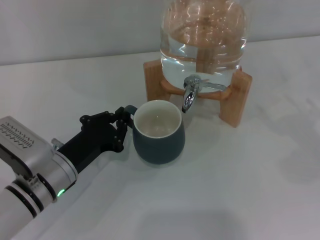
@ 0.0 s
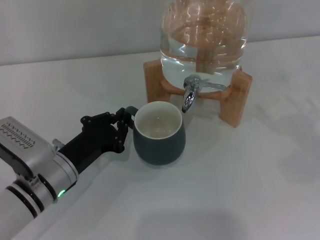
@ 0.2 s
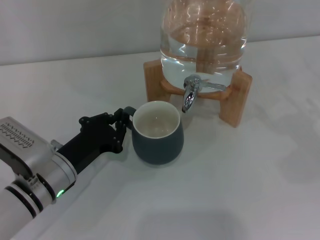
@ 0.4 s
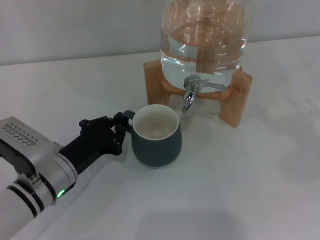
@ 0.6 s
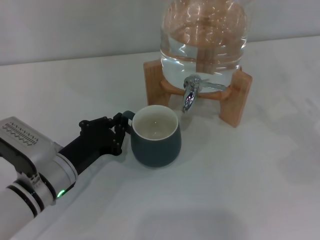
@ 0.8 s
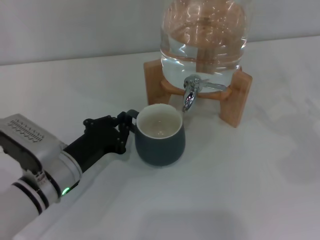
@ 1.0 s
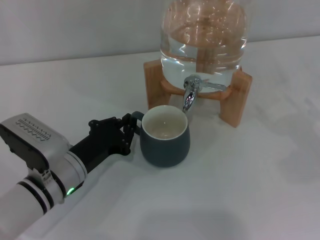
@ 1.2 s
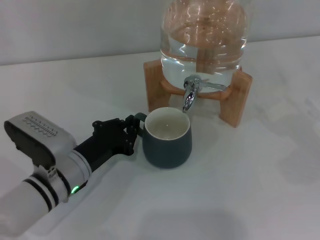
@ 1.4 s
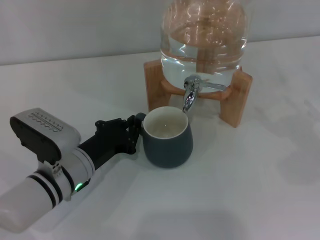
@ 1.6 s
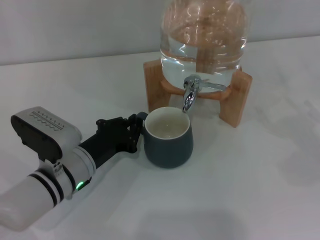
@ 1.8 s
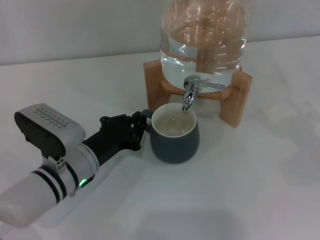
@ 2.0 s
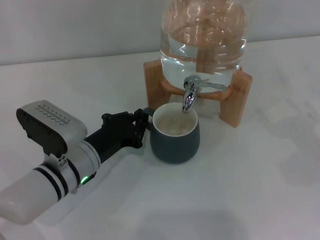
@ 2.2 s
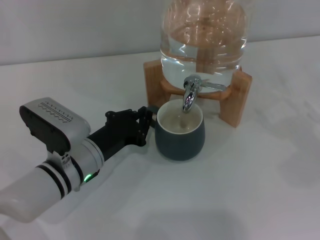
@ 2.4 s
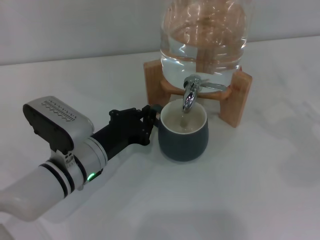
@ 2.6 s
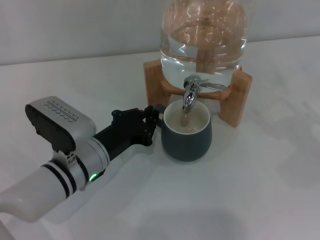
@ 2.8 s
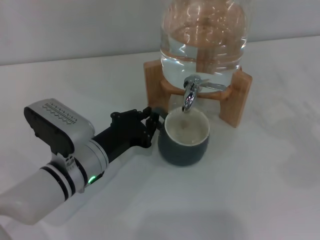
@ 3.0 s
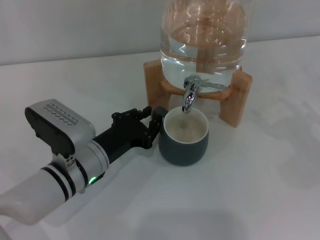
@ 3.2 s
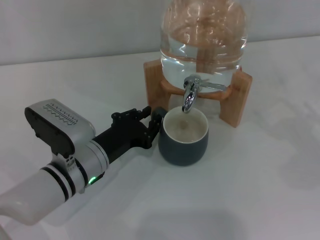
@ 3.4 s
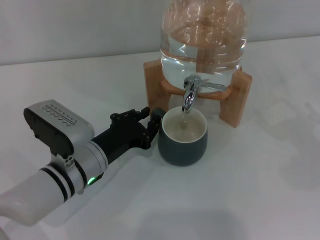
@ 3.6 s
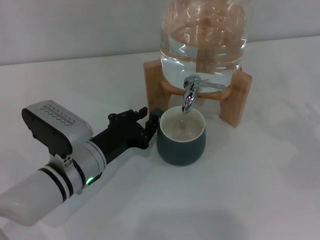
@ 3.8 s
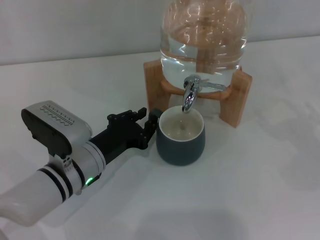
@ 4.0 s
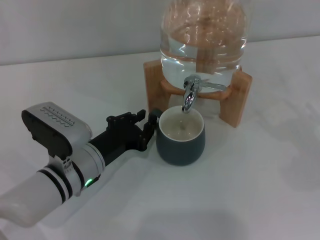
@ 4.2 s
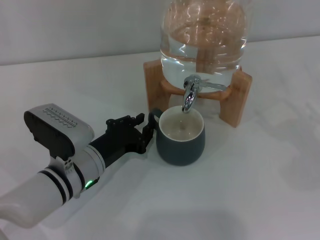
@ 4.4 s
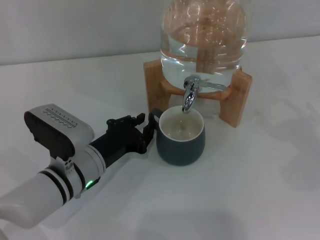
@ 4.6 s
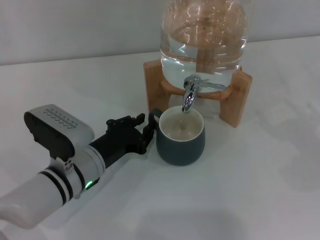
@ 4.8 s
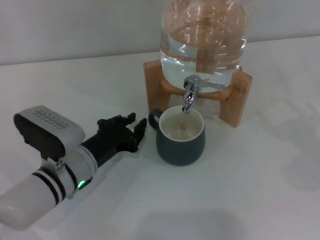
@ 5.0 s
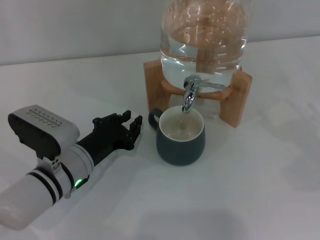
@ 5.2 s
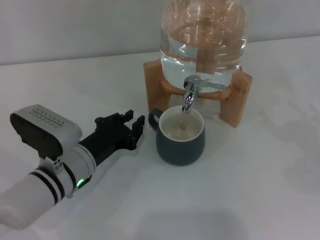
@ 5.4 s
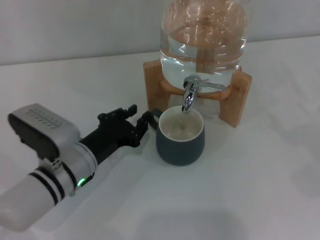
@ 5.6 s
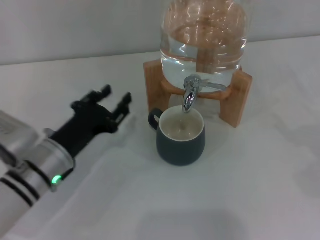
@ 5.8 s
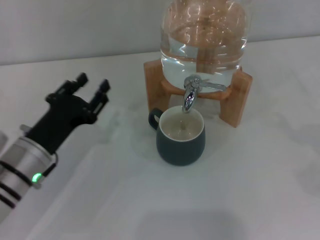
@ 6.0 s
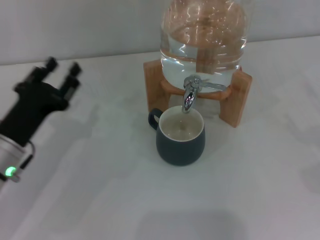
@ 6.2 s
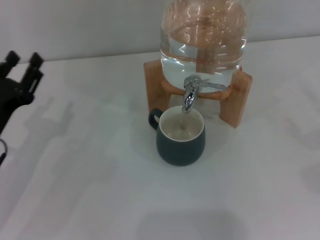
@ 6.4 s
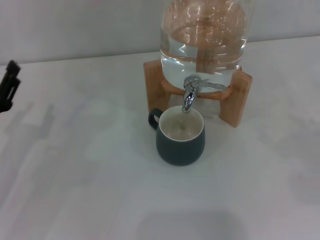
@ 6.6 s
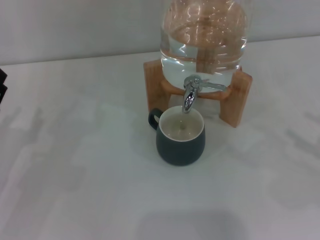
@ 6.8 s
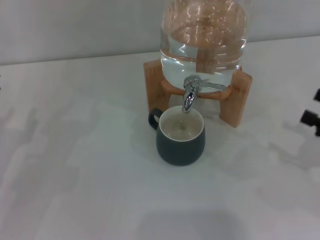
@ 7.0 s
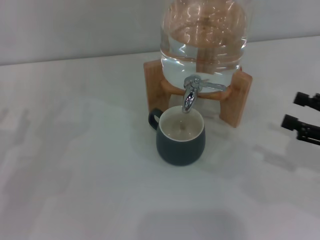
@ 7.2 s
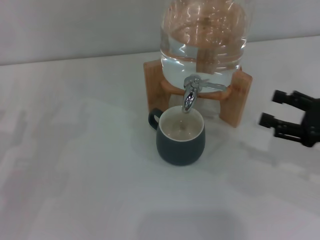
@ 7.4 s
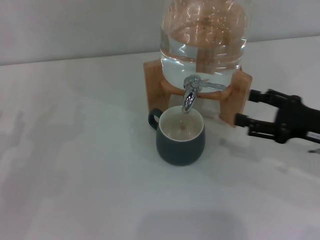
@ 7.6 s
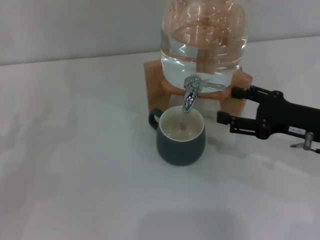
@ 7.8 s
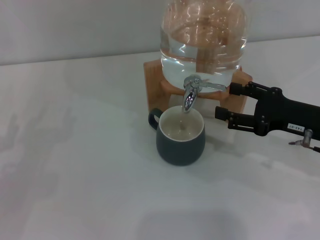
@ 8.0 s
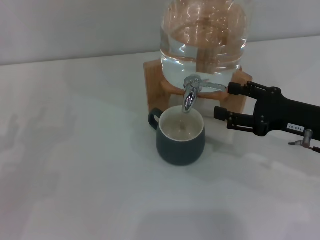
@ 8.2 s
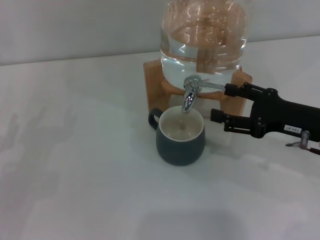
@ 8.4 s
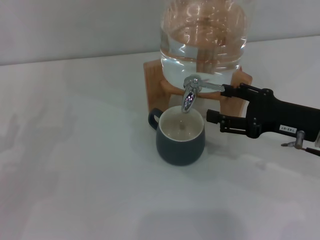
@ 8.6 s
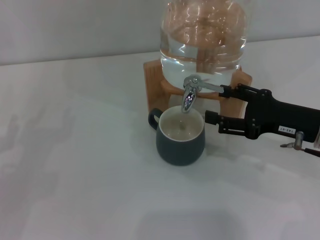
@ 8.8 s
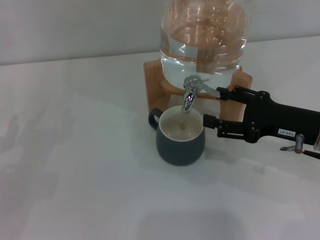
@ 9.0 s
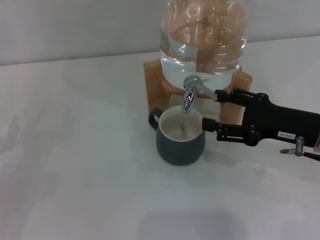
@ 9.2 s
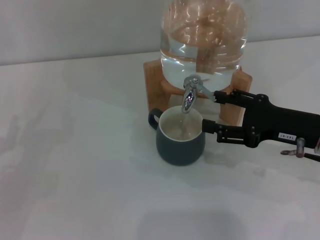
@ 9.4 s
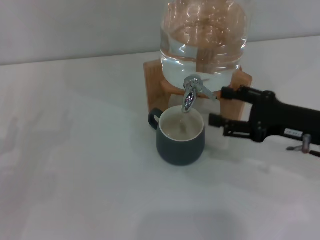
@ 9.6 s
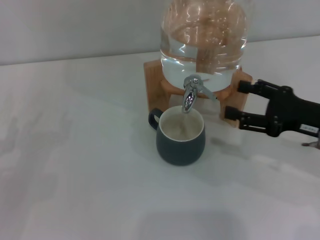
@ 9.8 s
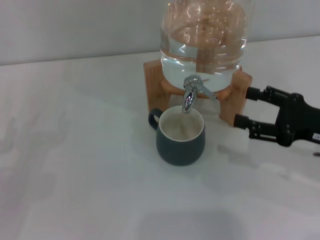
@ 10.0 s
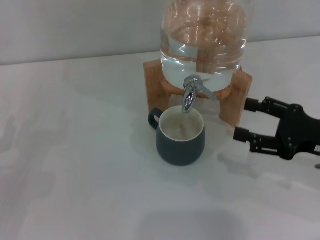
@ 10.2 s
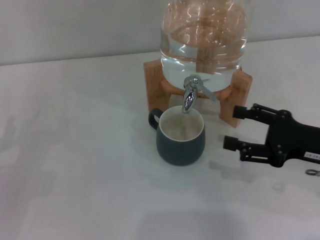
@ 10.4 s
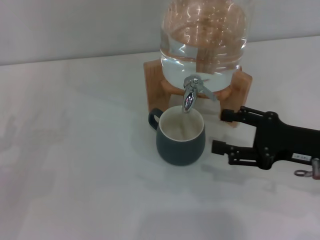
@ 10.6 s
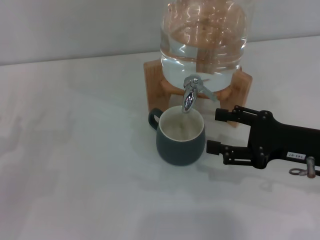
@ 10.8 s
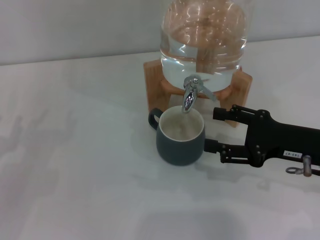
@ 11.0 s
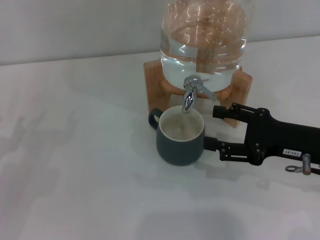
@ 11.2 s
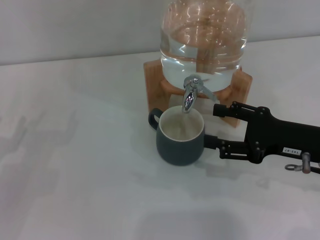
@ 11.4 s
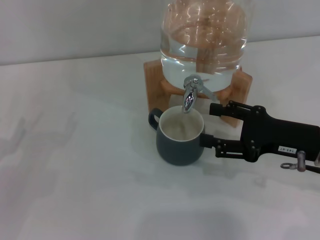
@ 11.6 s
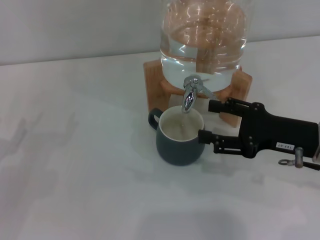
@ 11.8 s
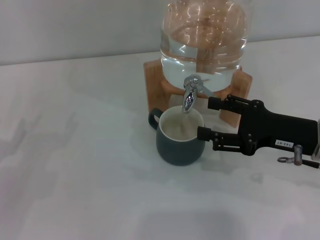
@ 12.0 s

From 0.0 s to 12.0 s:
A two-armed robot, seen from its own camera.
Task of the whole recording: the left gripper pick up the black cup and place it horizontally under the faucet, the right gripper turn on the faucet to fill the cup, and then turn off the faucet.
Step, from 0.0 s to 5.0 s: Move the cup beneath the water dispenser nozzle with the left gripper.
Step, from 5.2 s to 9.4 s: Open the dispenser valve and fill the cup with water with the right gripper.
From 0.0 s to 3.0 s: The grippers make only small movements.
From 3.0 s to 4.4 s: The two grippers keep their place.
From 4.4 s to 6.0 s: The left gripper is displaced to the left by about 5 cm.
From 6.0 s to 7.6 s: The right gripper moves to the left and forward, some 15 cm. The left gripper is displaced to the left by about 15 cm.
From 7.6 s to 12.0 s: The grippers stay close to where they were, moving slightly.

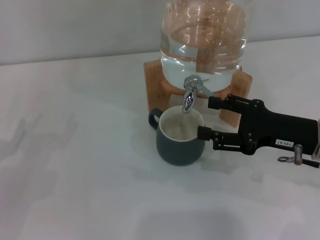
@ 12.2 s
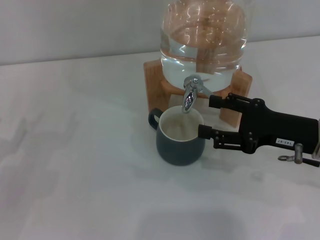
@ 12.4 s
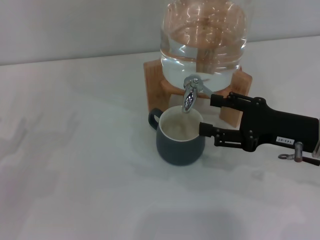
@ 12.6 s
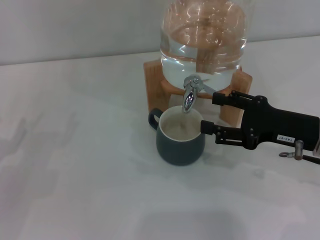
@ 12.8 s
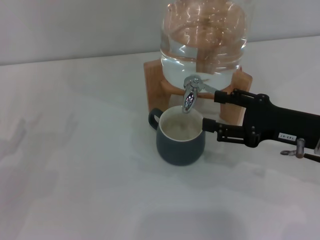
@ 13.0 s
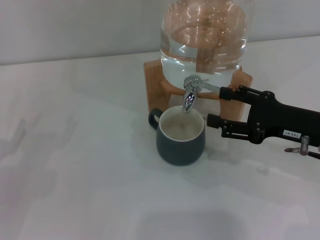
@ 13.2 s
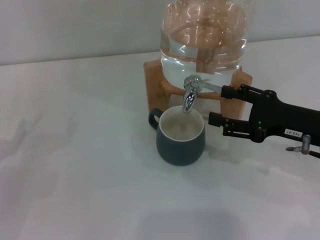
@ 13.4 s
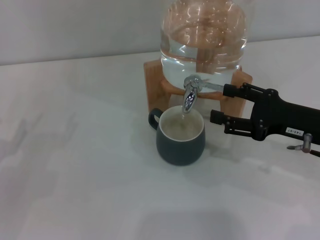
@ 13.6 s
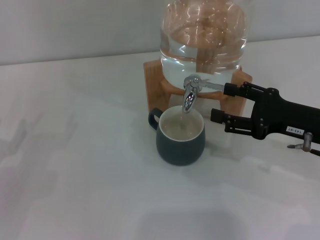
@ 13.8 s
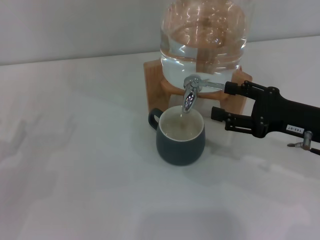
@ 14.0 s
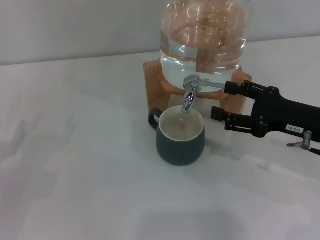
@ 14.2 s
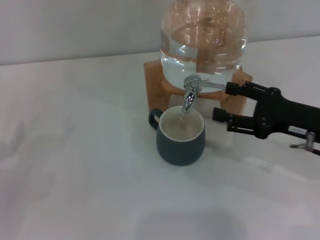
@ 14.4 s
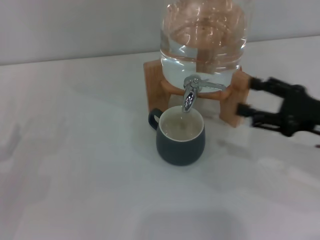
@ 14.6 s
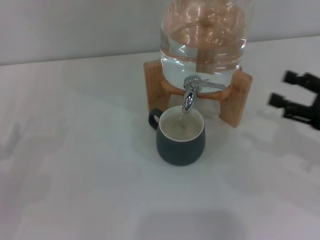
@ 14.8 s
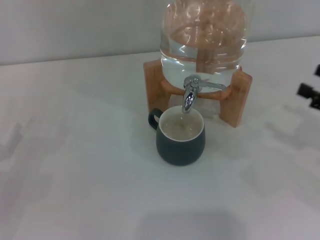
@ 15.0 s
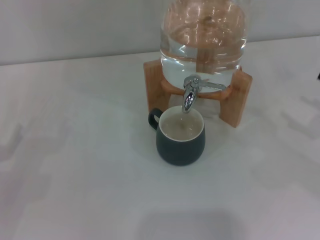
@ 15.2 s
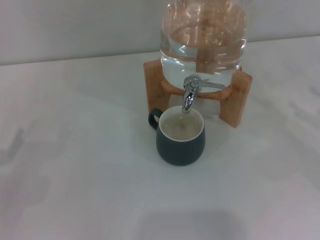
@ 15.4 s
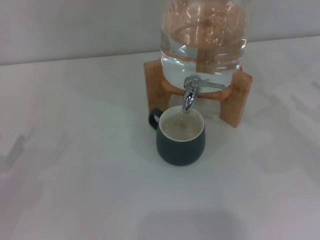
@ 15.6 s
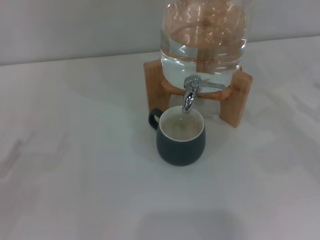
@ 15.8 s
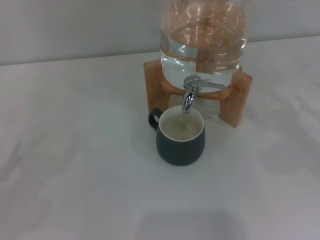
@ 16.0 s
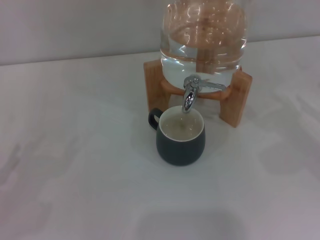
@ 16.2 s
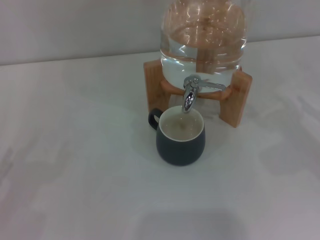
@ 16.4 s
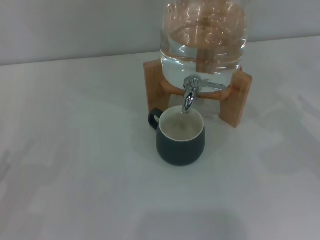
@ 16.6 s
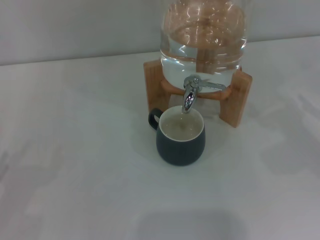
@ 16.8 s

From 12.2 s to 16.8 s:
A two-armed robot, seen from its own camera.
Task of the whole recording: the left gripper pick up the black cup and place it horizontally under the faucet, the right gripper turn on the faucet to fill the cup, and then turn off the faucet.
Step, from 12.2 s to 14.2 s: Close the dispenser valve with the right gripper.
From 12.2 s to 13.8 s: The grippers move only a little.
From 13.8 s to 15.2 s: The right gripper shifts about 10 cm to the right.
